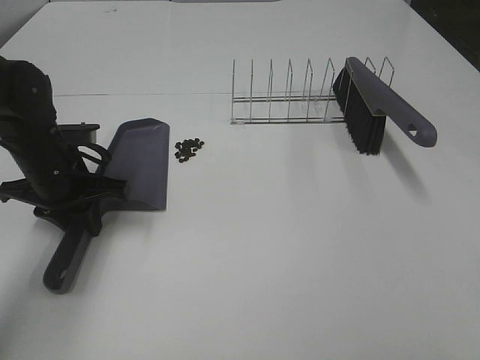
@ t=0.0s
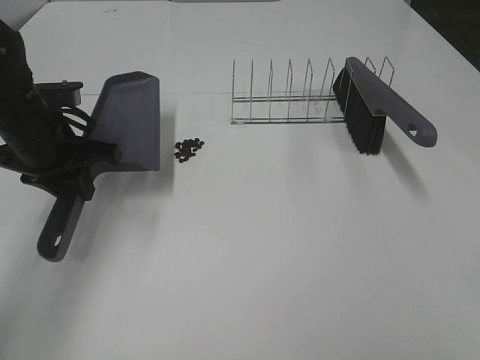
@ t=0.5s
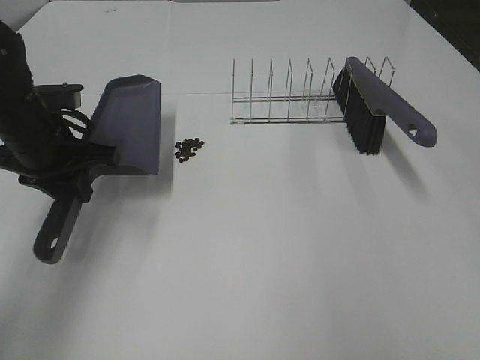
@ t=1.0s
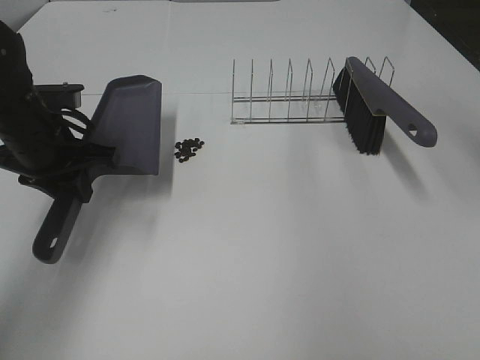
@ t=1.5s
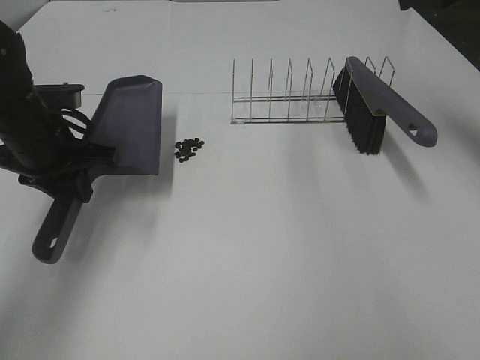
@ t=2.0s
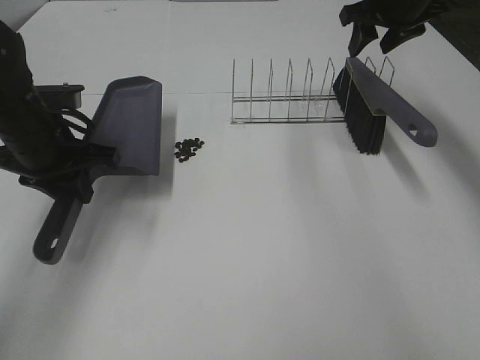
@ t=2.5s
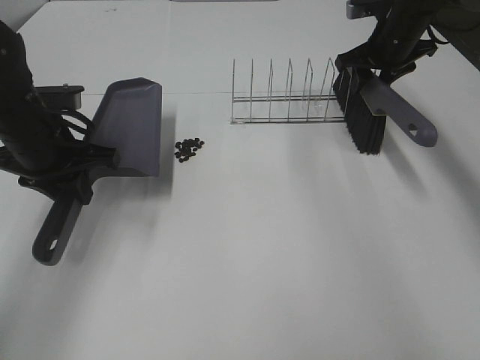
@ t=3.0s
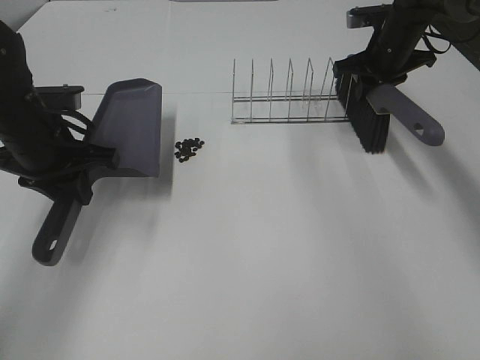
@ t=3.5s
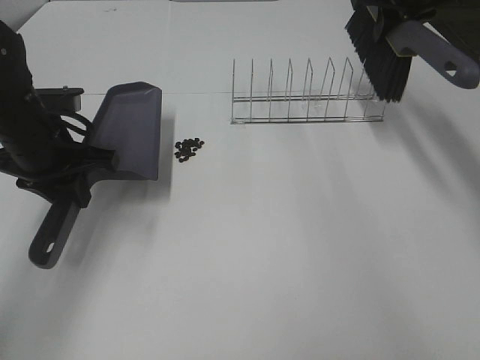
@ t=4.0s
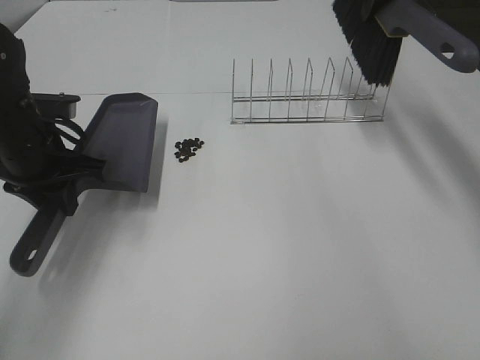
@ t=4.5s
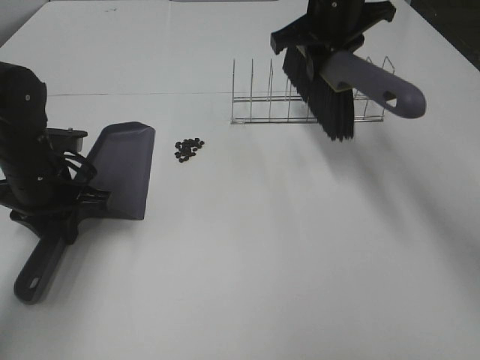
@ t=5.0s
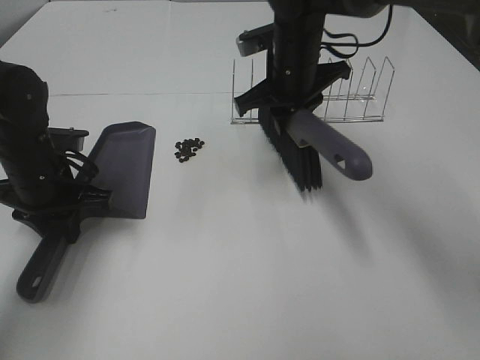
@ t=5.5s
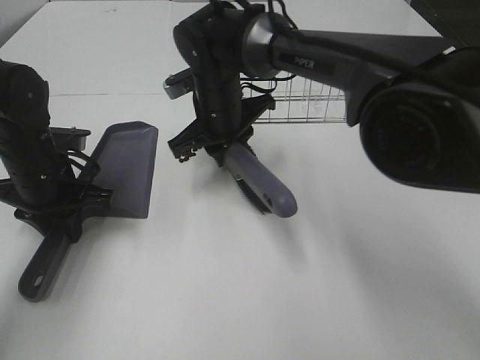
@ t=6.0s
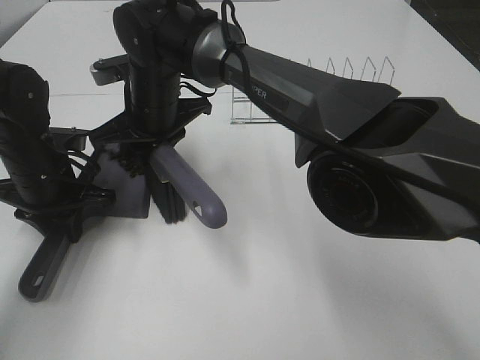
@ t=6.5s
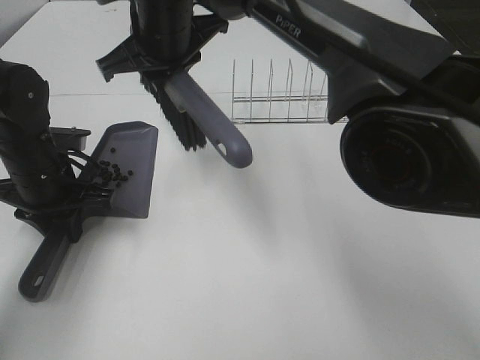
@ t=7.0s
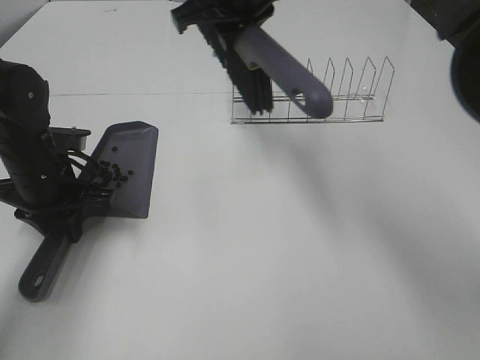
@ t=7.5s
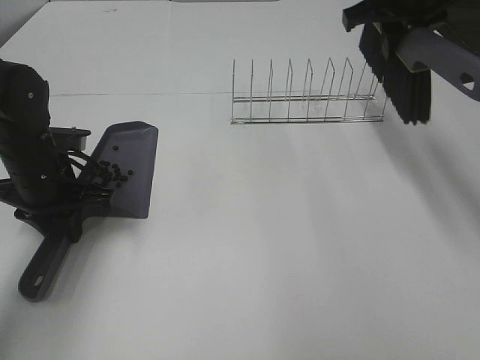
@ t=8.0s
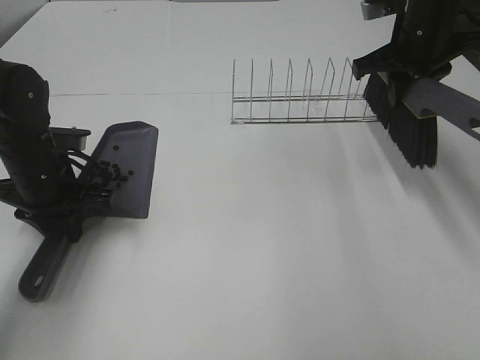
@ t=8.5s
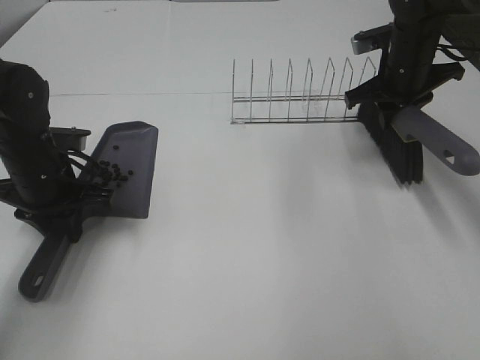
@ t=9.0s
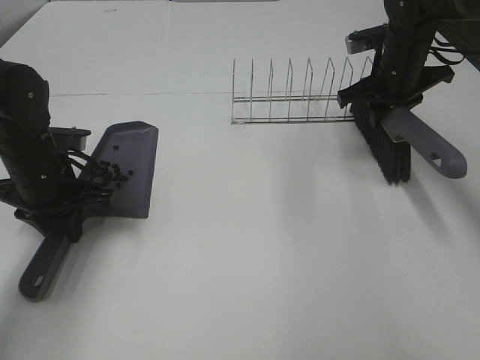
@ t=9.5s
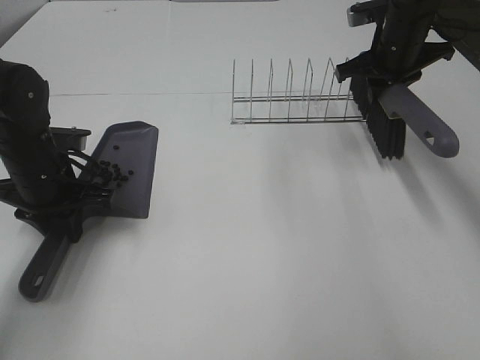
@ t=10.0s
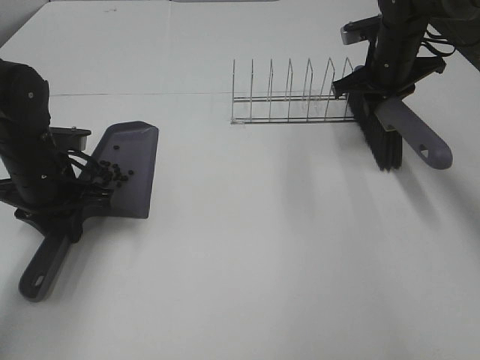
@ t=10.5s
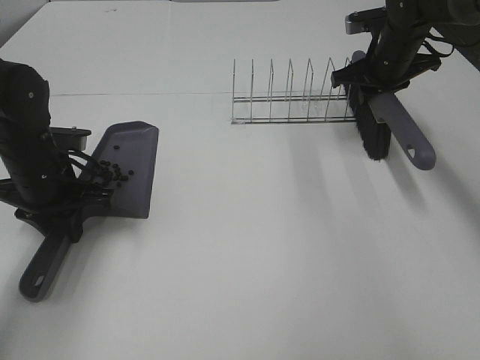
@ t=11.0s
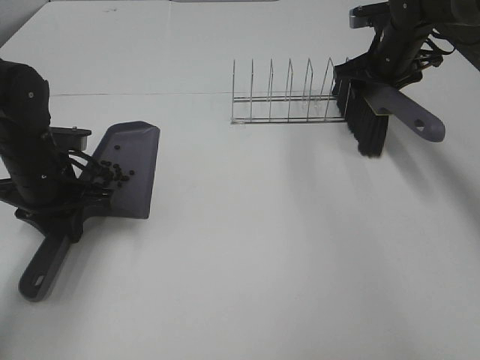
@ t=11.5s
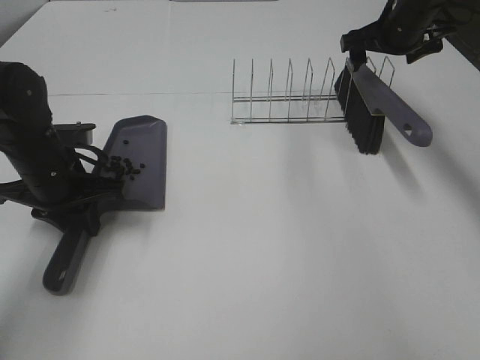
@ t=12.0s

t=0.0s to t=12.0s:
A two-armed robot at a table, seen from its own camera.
Task of the whole recording: Sweep Coffee Bean.
Step, t=0.5s to t=3.0s: Right hand:grab the broom.
Step, t=3.5s to t=6.5s: Right hand:sweep the coffee beans into the dustpan.
Step, t=7.0s to t=11.5s: Right hand:place the broom on the rack.
t=0.0s to t=2.0s: The left gripper travels upward by approximately 5 cm; the right gripper shifts about 50 cm forward.
t=2.0s to t=4.0s: The right gripper shifts about 10 cm forward and downward, and closes its fingers.
t=4.0s to t=6.0s: The right gripper heads to the left and downward, covering approximately 30 cm. The left gripper heads downward, covering some 5 cm.
t=6.0s to t=8.0s: The right gripper travels to the right and upward by roughly 30 cm.
t=8.0s to t=10.0s: The right gripper travels downward by some 10 cm.
t=10.0s to t=12.0s: The right gripper opens.

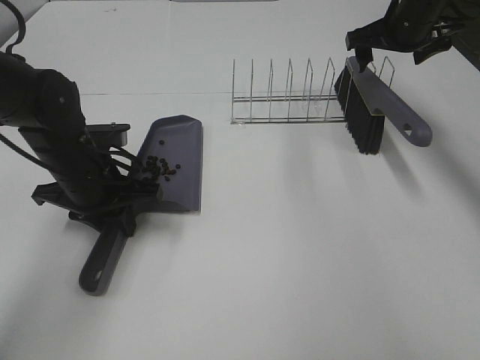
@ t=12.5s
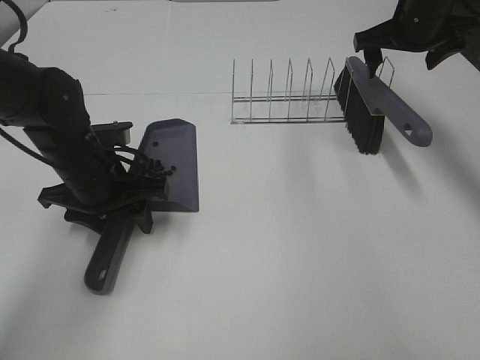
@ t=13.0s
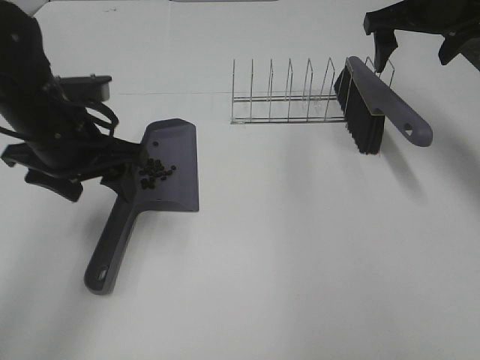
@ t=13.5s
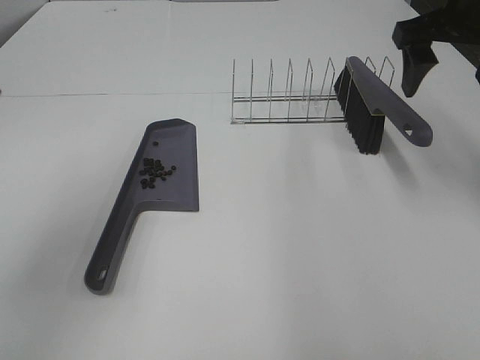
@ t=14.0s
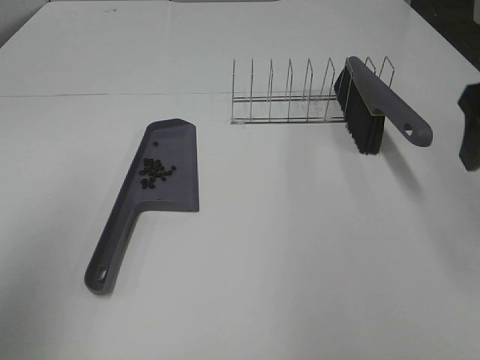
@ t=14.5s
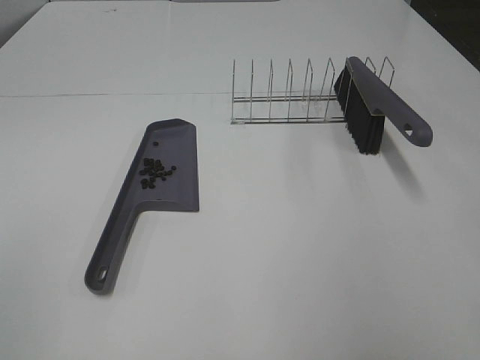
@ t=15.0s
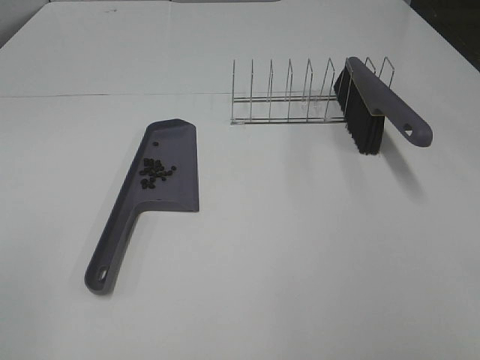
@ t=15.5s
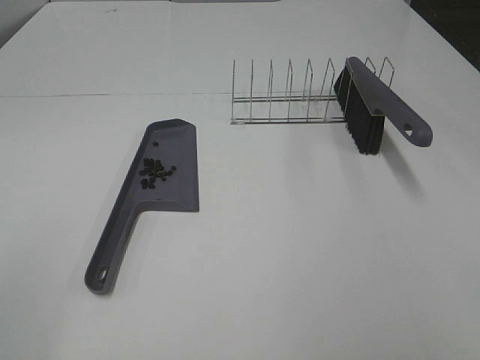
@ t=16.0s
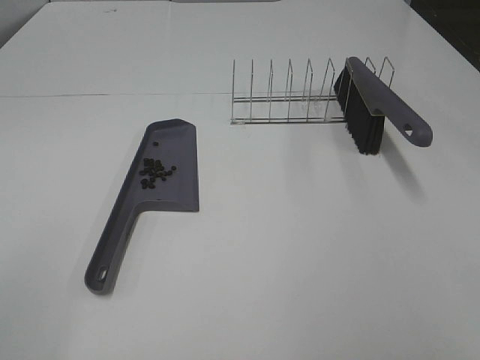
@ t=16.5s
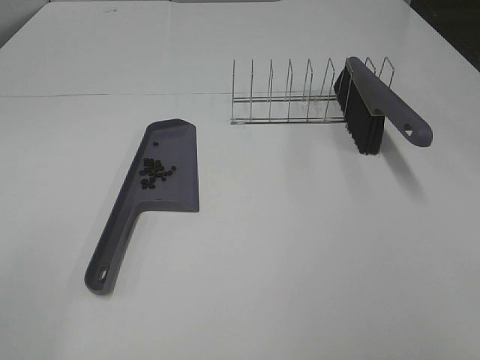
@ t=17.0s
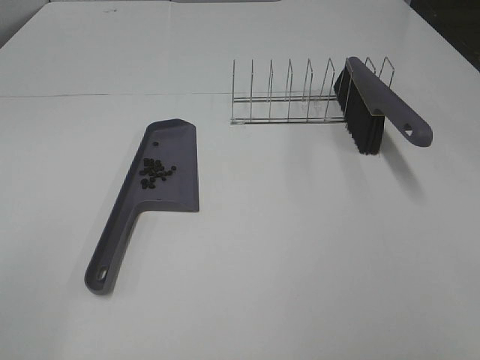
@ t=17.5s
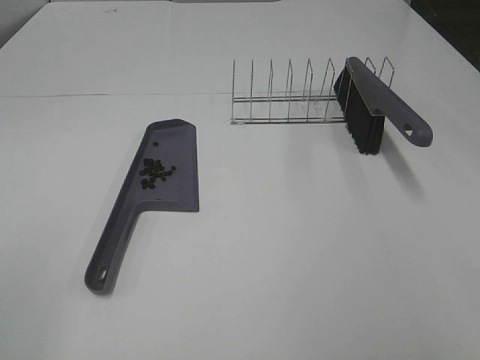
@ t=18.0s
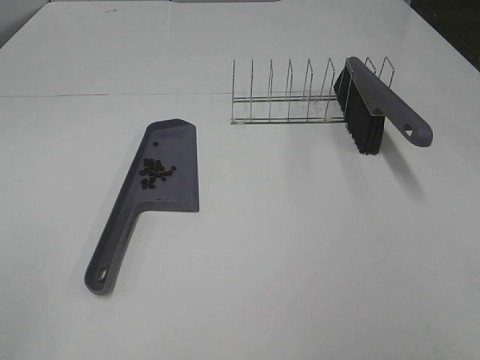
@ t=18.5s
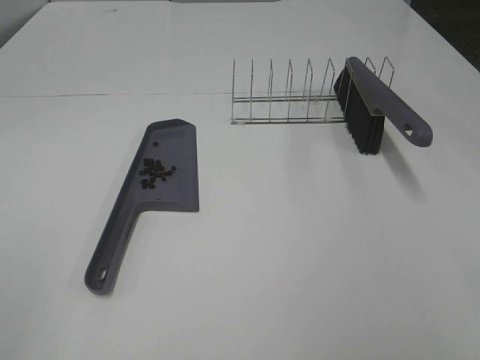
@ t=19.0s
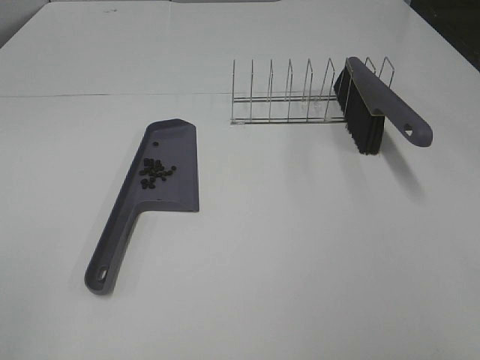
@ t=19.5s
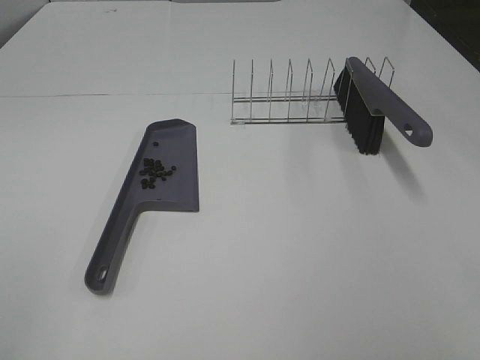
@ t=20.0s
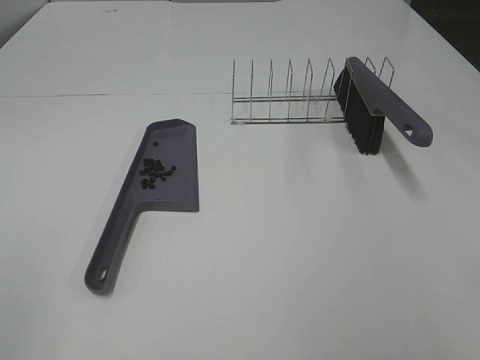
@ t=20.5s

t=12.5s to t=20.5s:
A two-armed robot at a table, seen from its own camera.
Task of the whole recording: Sweep Coffee Bean.
t=12.5s to t=14.5s: The left gripper travels upward, backward and to the left by about 35 cm, and opens. Meanwhile the right gripper is displaced backward by approximately 25 cm.
t=14.5s to t=16.5s: The left gripper heads backward, covering some 10 cm, while the right gripper is displaced backward by approximately 25 cm.
t=18.5s to t=20.5s: Both grippers stay put.

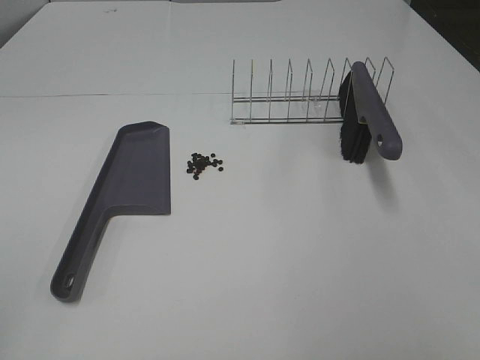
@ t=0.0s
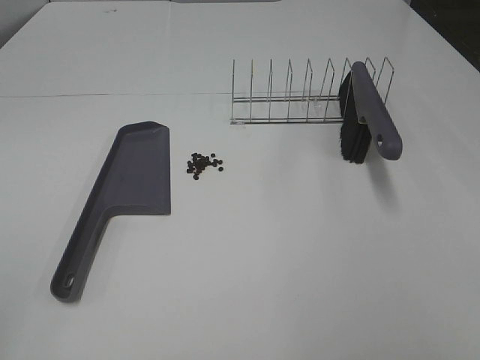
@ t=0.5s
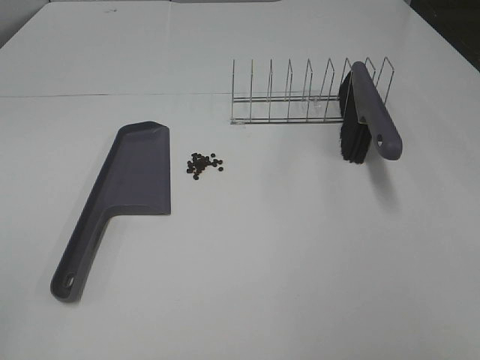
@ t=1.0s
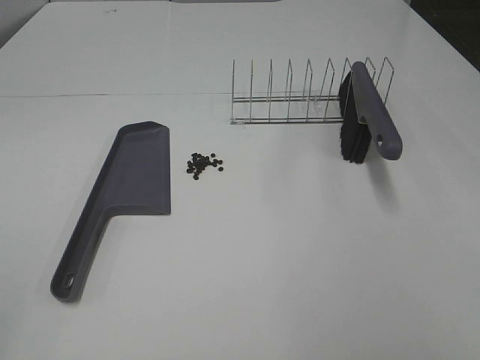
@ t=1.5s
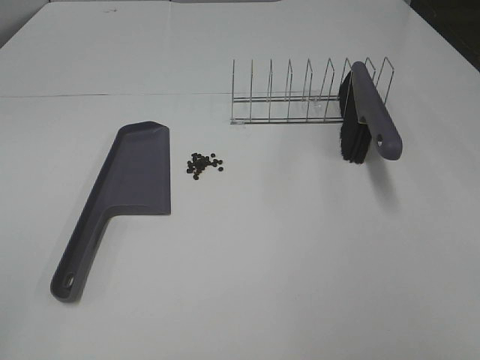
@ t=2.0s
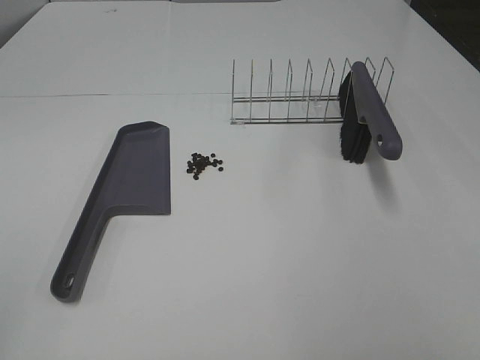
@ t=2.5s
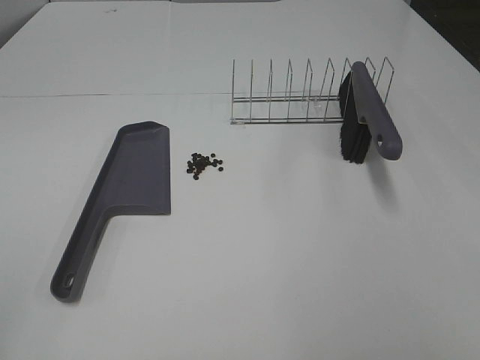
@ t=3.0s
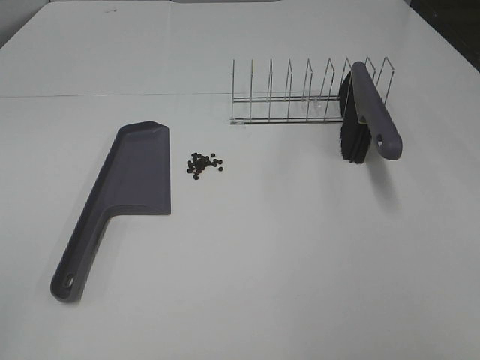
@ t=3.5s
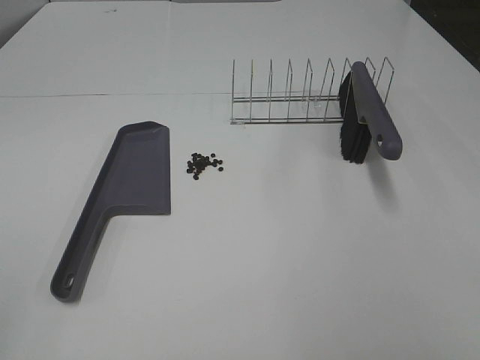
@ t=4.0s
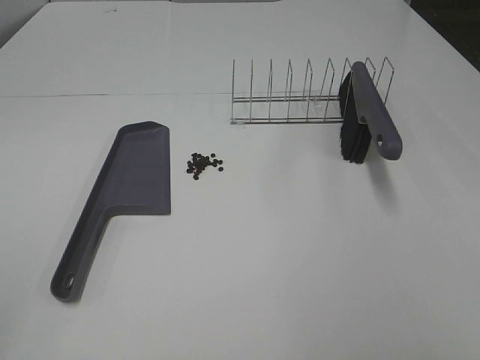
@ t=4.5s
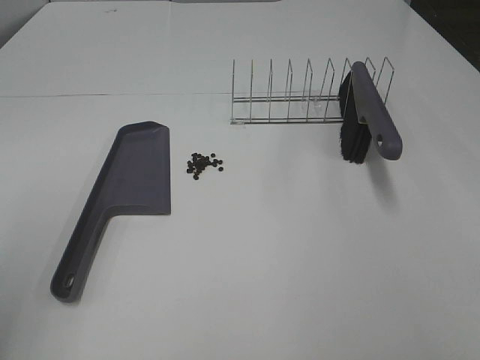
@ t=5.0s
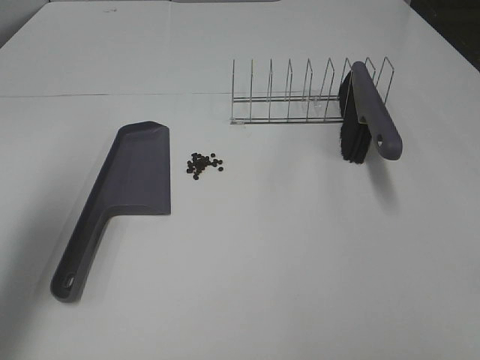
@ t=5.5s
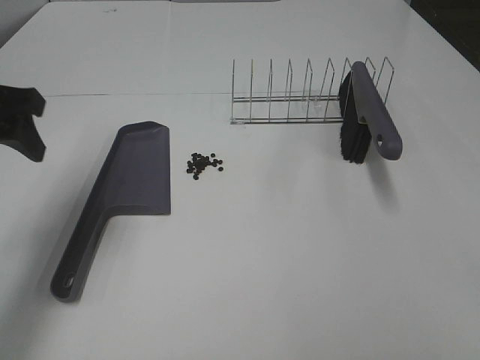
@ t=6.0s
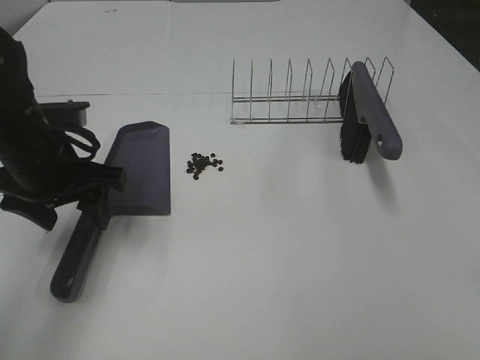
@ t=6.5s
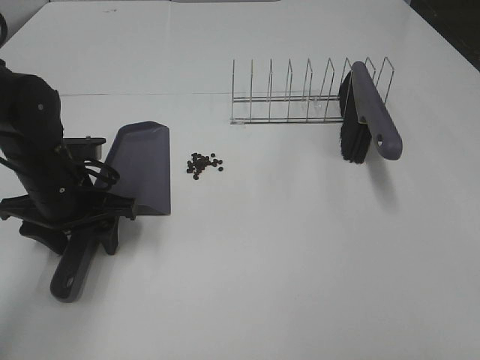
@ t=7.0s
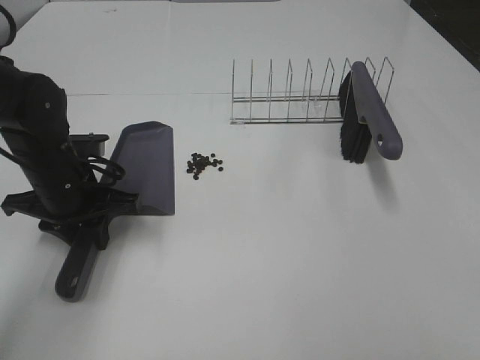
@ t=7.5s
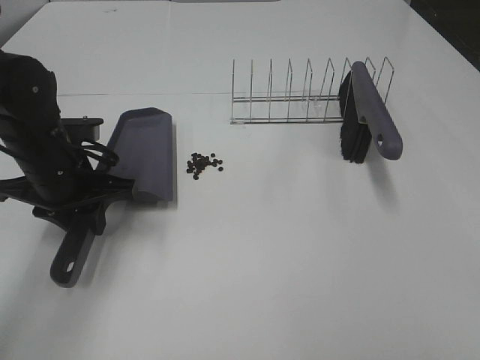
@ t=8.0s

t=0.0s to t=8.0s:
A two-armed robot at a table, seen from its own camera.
Task of the whole recording: Sweep Coffee Bean.
Step, t=0.0s to t=7.0s: Left hand: grab the dustpan.
t=0.0s to t=4.0s: The two grippers keep their place.
t=4.0s to t=6.0s: The left gripper moves forward, some 30 cm.
t=6.0s to t=8.0s: The left gripper is displaced downward and to the right by about 15 cm, and closes its fingers.
